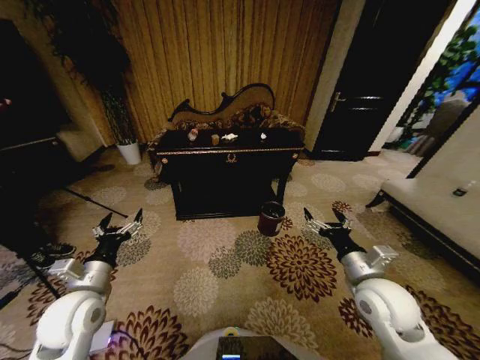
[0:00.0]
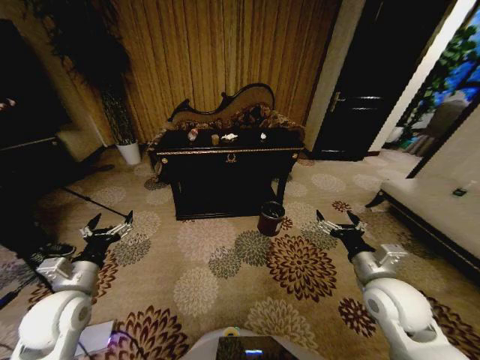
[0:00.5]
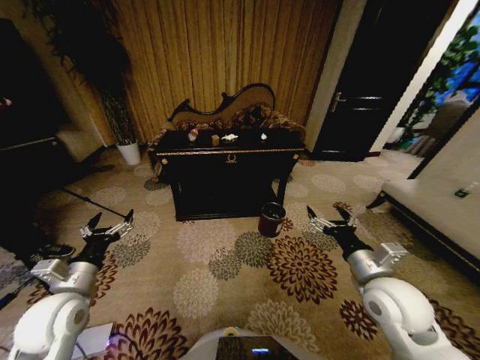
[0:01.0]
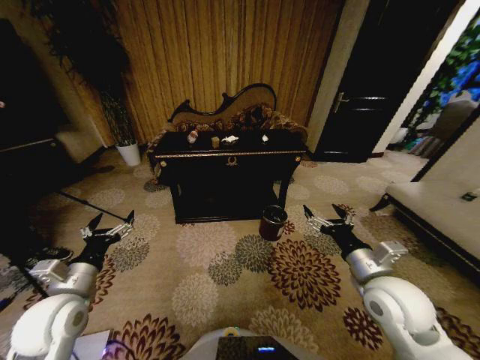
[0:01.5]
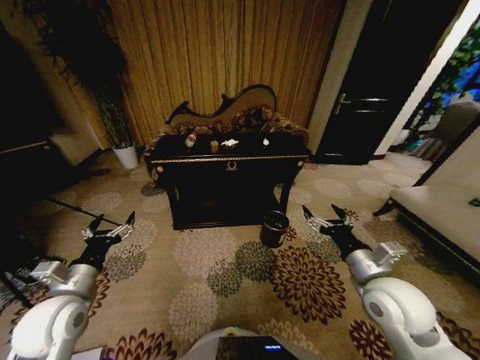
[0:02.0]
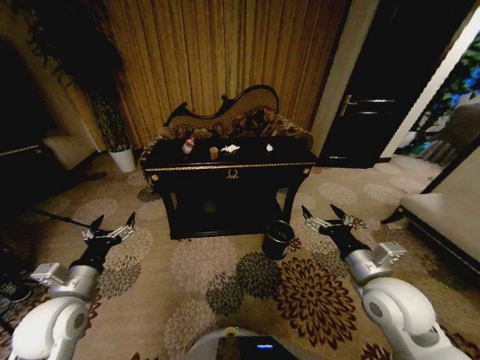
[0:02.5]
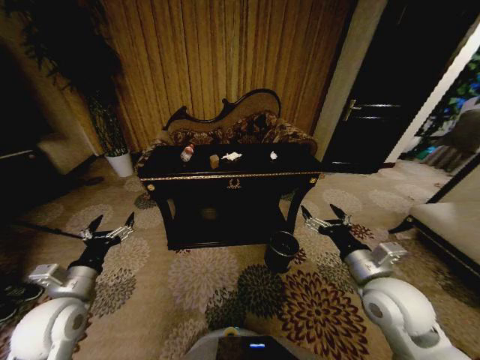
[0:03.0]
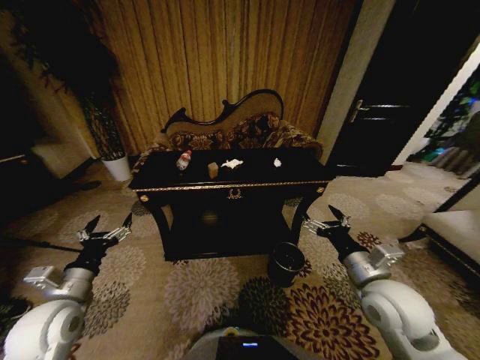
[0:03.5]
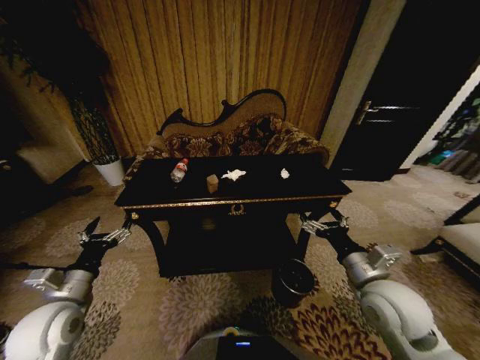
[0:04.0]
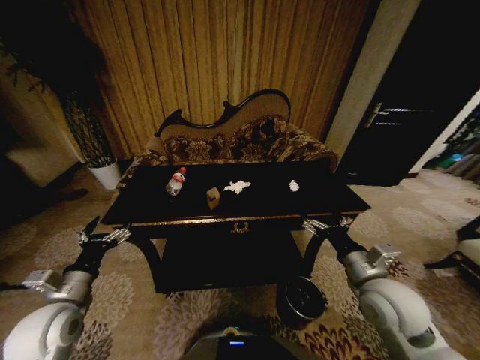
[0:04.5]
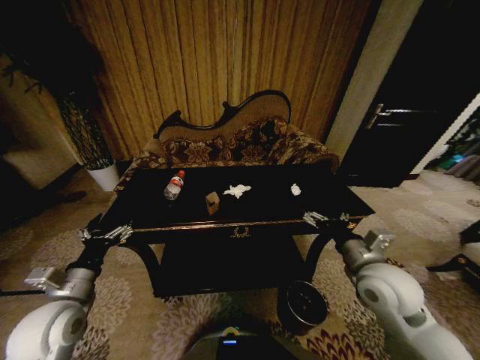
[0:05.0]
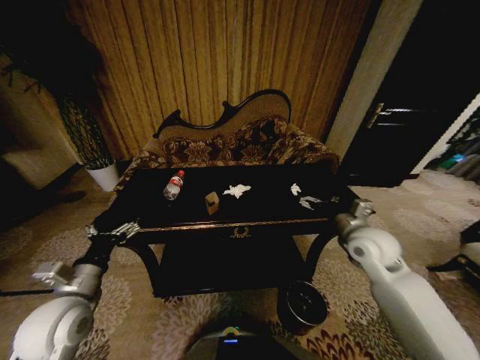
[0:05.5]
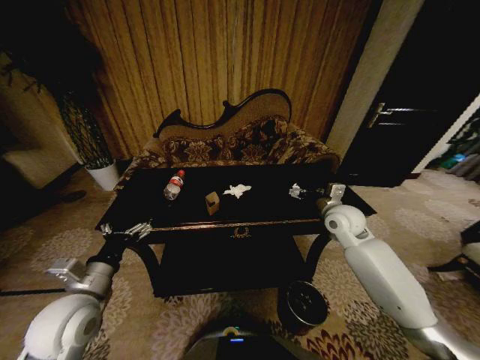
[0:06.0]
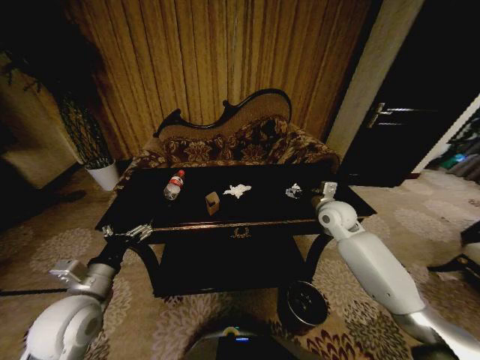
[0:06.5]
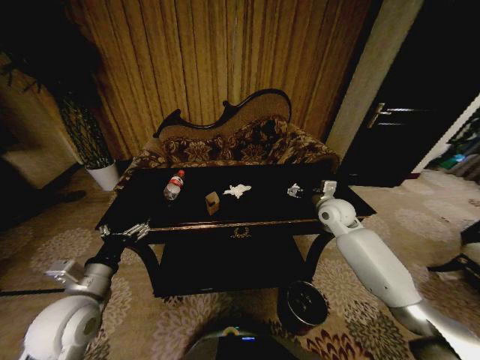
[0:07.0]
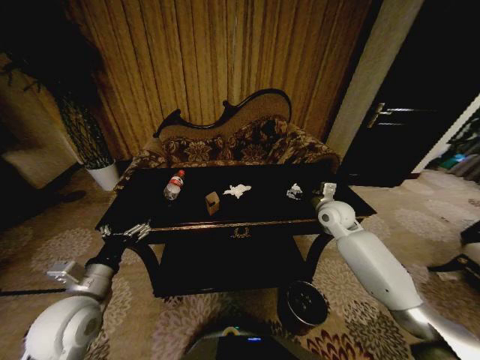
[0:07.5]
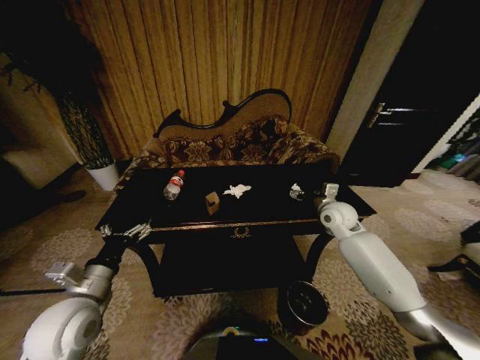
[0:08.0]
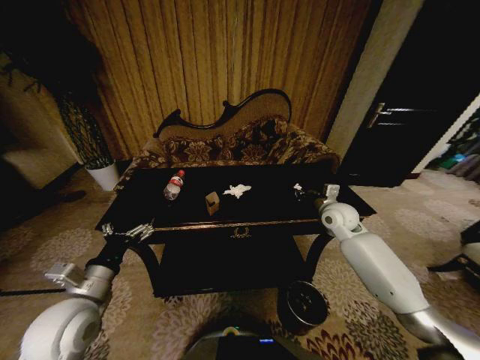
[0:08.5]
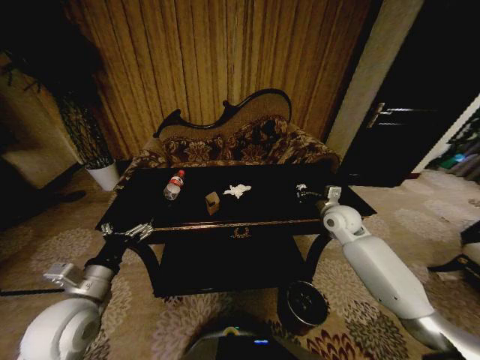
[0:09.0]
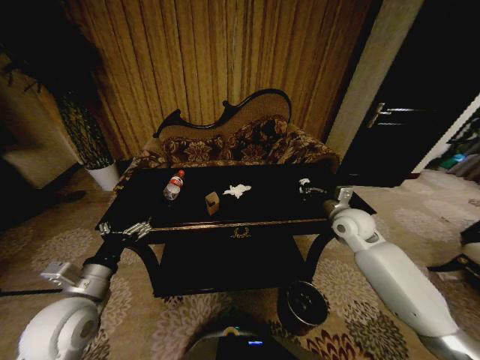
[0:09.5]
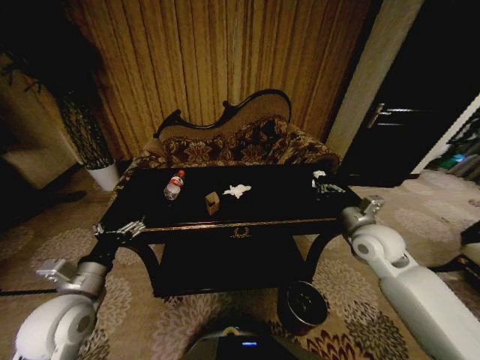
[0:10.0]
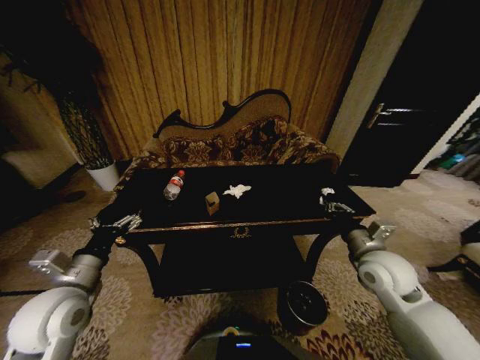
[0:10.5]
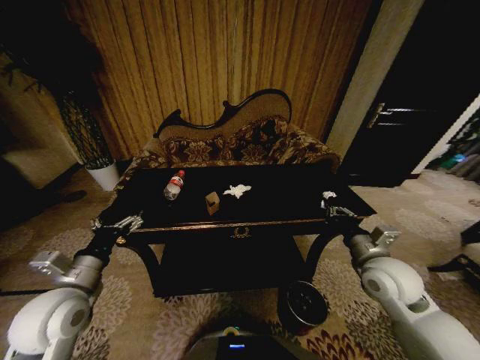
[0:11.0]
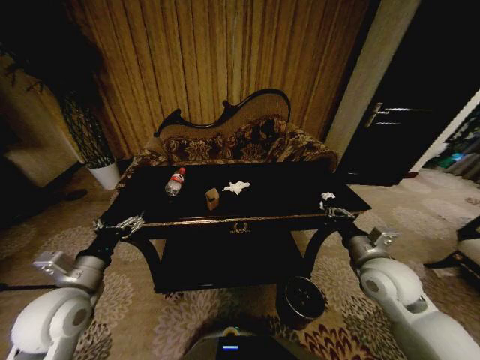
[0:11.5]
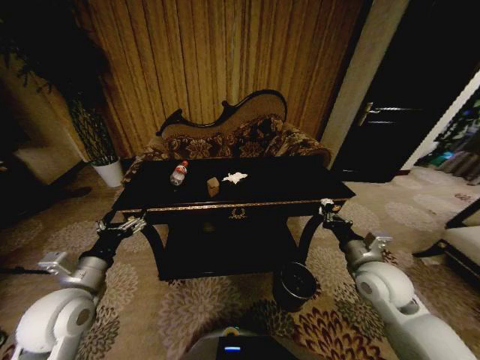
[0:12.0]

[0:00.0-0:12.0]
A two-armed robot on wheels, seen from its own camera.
Task of the whole recording: Move to the front of the table and place the trash on the table into the trash bin.
0:04.0 to 0:06.0: The left gripper travels to the right by roughly 5 cm, while the right gripper moves forward, about 20 cm.
0:06.0 to 0:08.0: The grippers move only a little.
0:08.0 to 0:10.0: The right gripper goes roughly 10 cm backward, and closes its fingers.
0:10.0 to 0:12.0: The right gripper travels backward by some 5 cm.

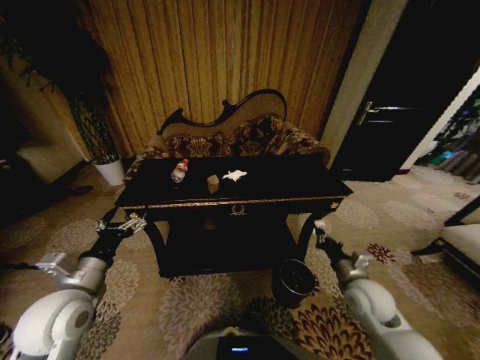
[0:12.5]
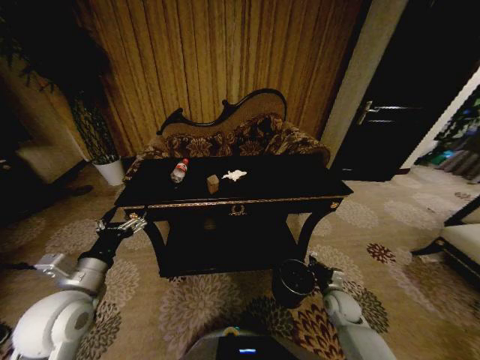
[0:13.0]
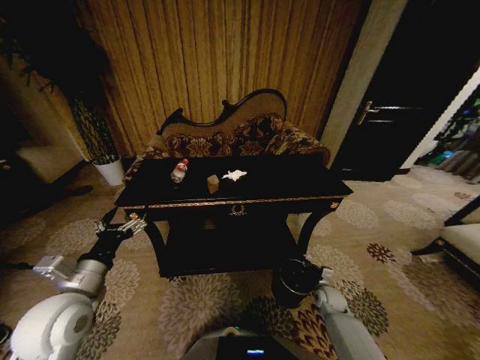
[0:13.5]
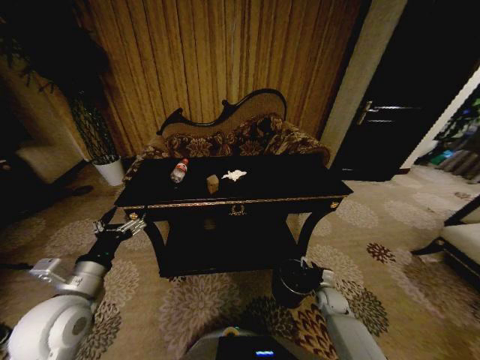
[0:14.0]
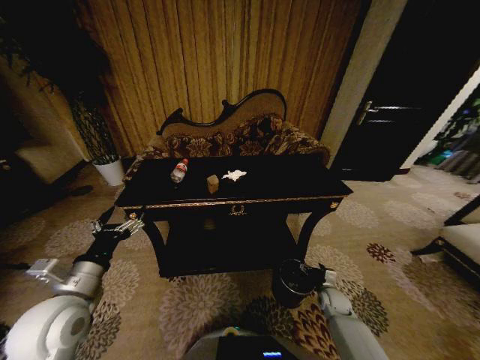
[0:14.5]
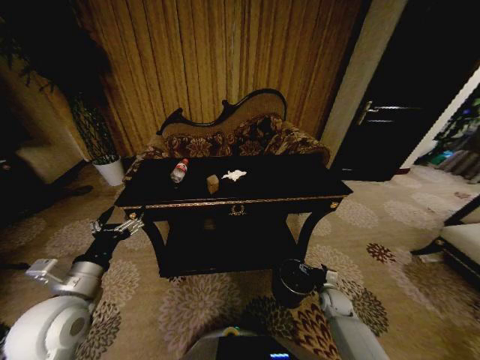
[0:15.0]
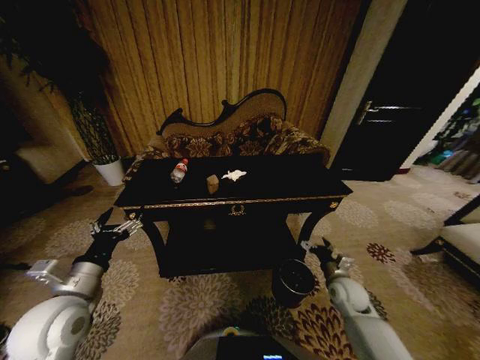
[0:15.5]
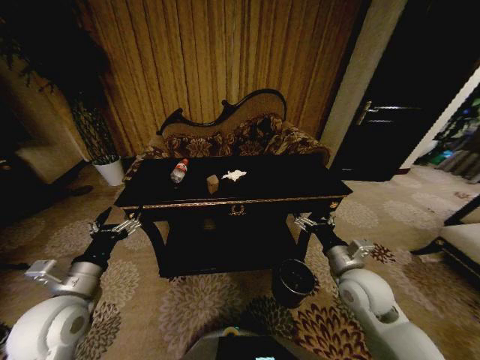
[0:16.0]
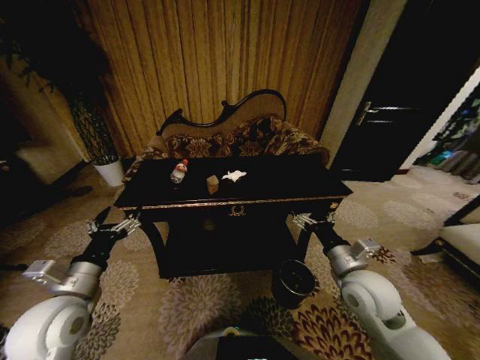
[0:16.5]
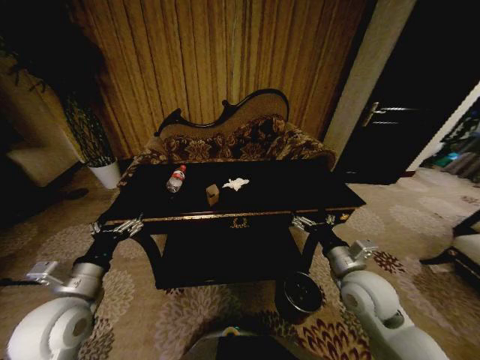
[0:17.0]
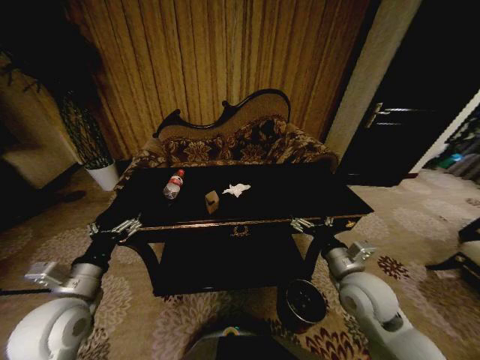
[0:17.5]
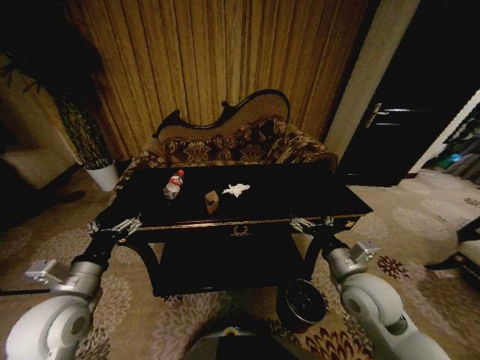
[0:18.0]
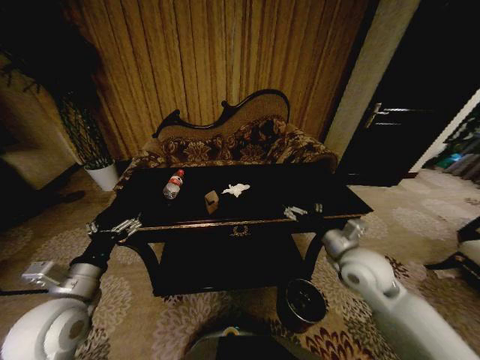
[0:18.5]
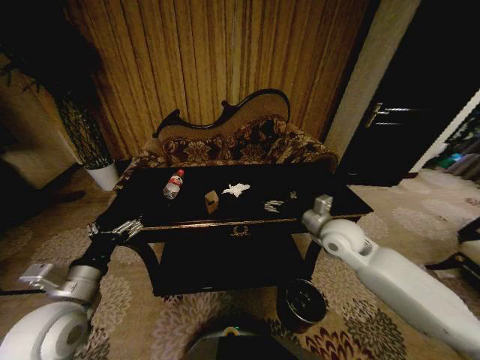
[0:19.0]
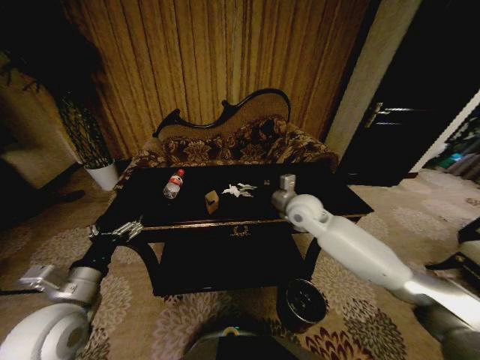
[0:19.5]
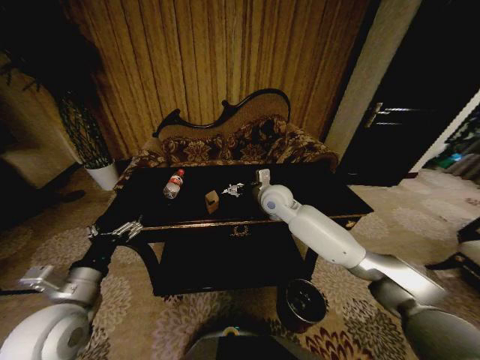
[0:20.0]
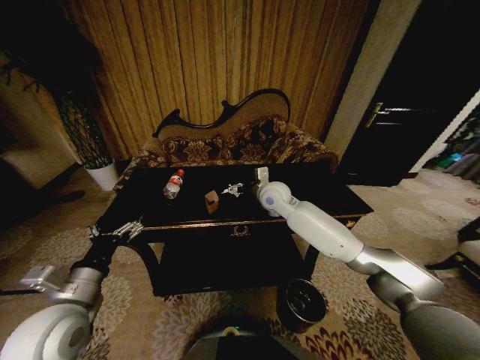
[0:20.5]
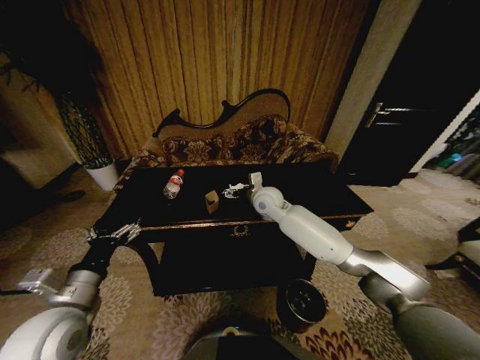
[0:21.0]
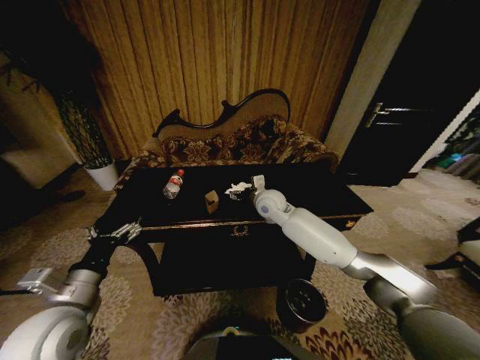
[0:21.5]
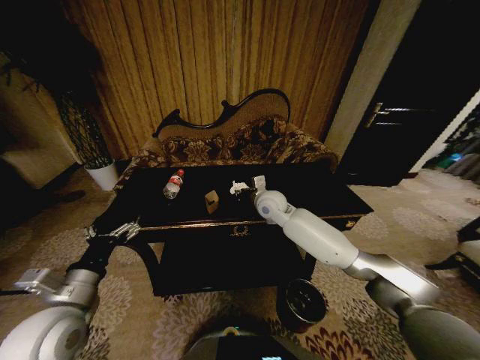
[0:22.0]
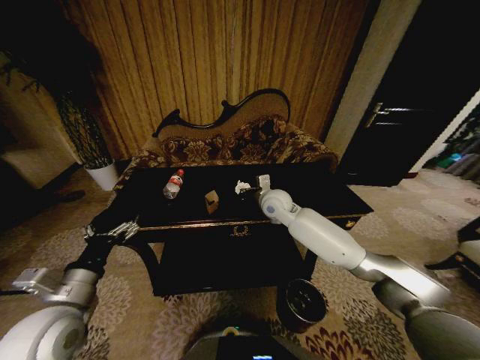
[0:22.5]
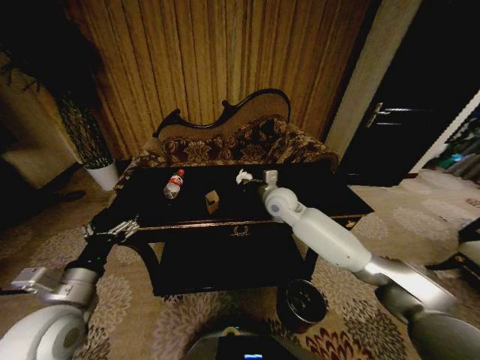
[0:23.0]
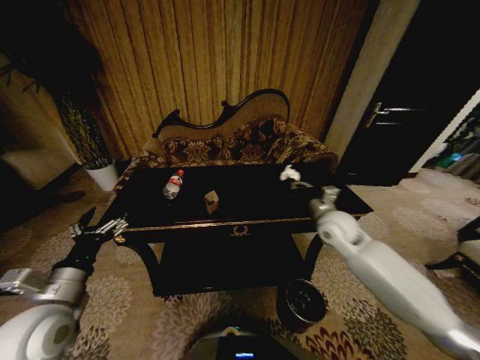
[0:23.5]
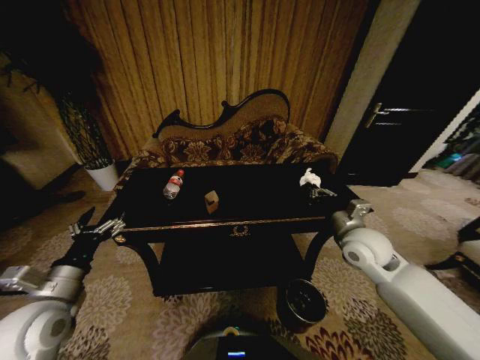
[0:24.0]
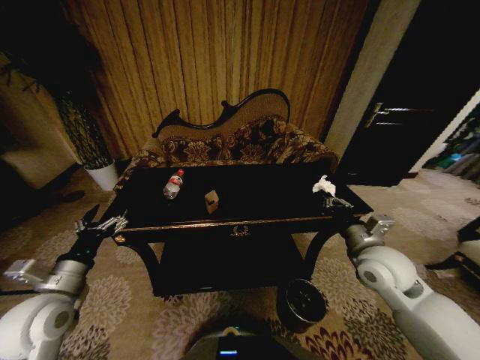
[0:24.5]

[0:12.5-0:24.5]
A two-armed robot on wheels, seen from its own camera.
Task of the whole recording: Move to the front of the table and place the trash on the table into the trash bin.
0:12.5 to 0:14.5: The right gripper heads downward, covering approximately 20 cm, and opens.
0:14.5 to 0:16.5: The right gripper is displaced upward by about 30 cm.
0:18.5 to 0:20.5: The right gripper is displaced forward and to the left by roughly 25 cm.
0:20.5 to 0:22.5: The right gripper closes.
0:22.5 to 0:24.5: The right gripper travels backward and to the right by roughly 30 cm; the left gripper changes place by about 5 cm.

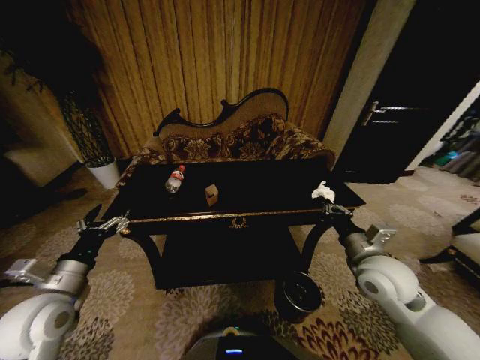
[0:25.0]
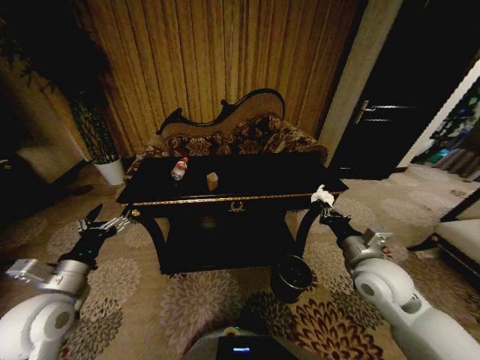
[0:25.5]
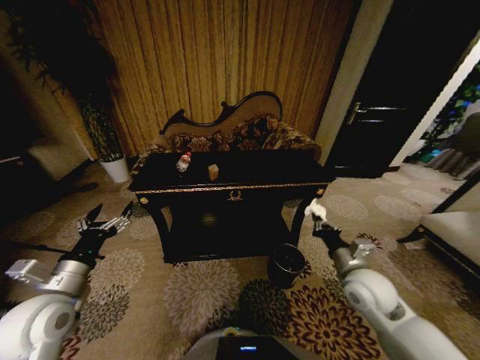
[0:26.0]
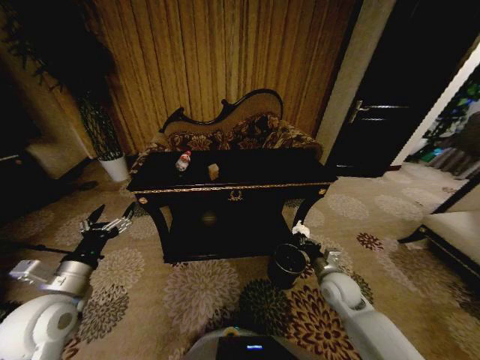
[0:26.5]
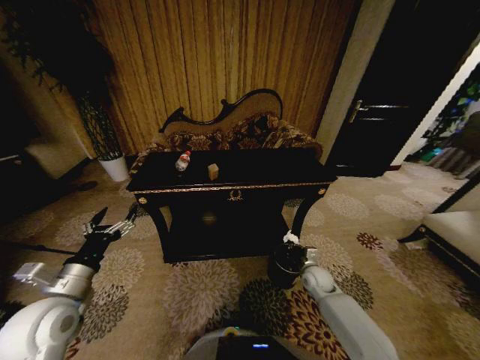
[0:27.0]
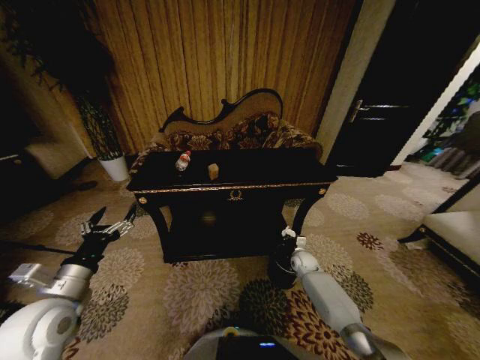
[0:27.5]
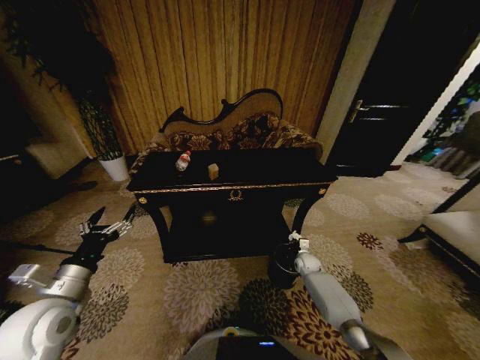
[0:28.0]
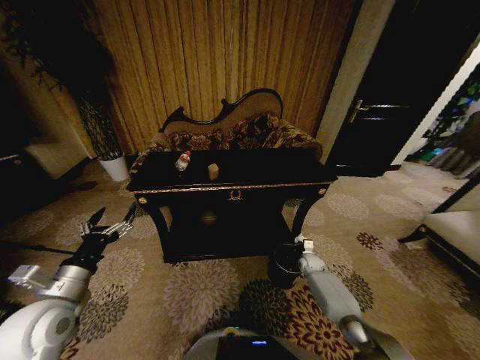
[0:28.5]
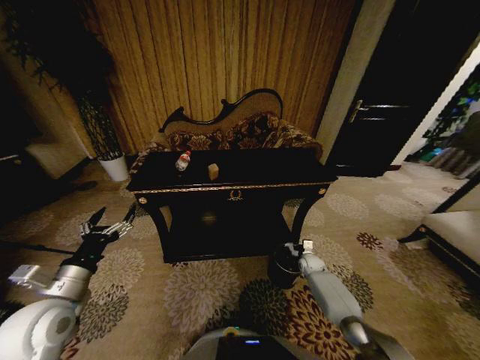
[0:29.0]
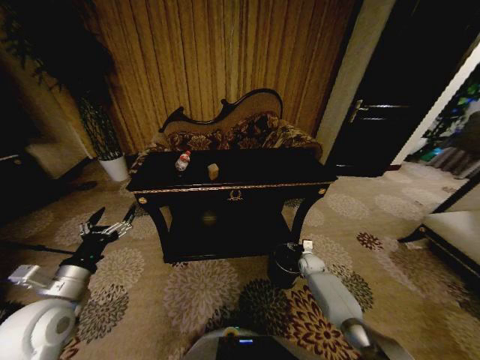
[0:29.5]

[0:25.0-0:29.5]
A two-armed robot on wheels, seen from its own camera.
Task of the whole recording: Move to the front of the table and place the trash on the table into the trash bin.
0:25.0 to 0:27.0: The right gripper travels downward by some 25 cm.
0:27.0 to 0:29.5: The right gripper heads forward and downward, covering approximately 10 cm, and opens up.
